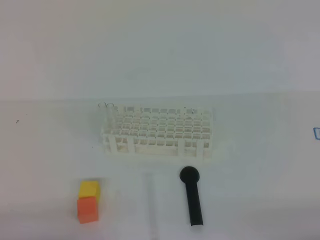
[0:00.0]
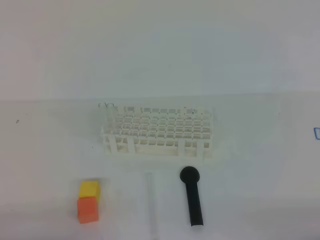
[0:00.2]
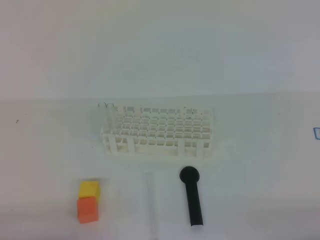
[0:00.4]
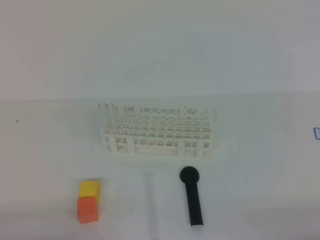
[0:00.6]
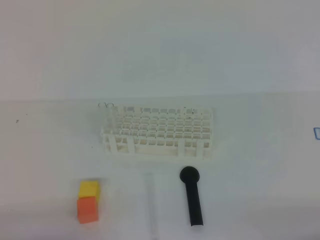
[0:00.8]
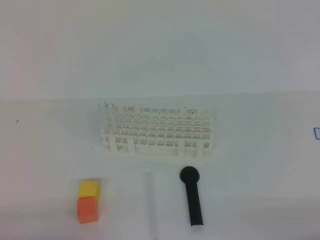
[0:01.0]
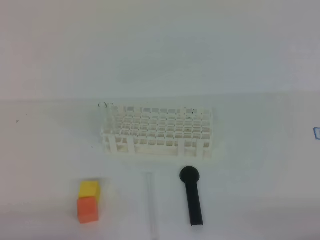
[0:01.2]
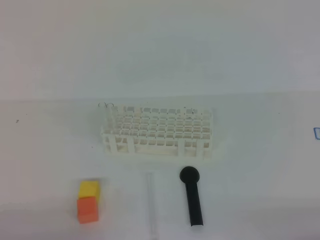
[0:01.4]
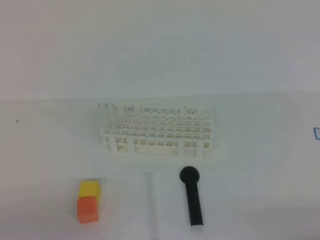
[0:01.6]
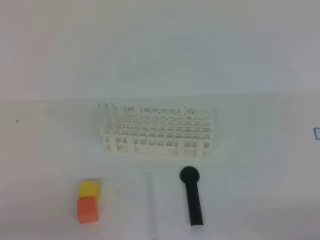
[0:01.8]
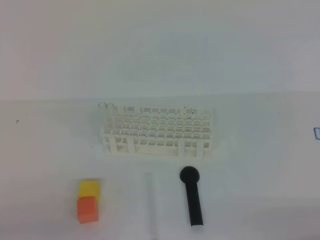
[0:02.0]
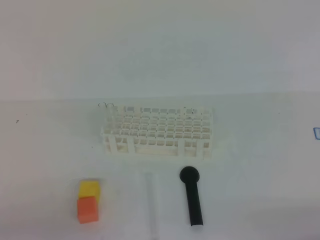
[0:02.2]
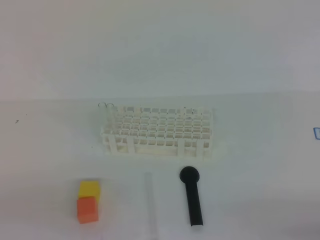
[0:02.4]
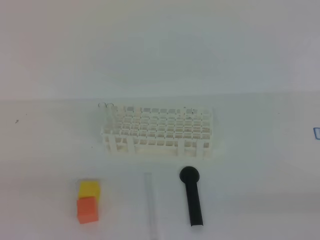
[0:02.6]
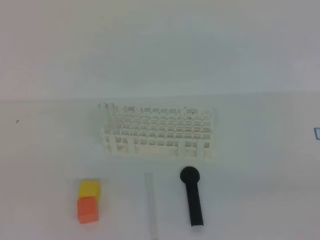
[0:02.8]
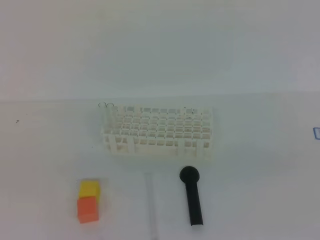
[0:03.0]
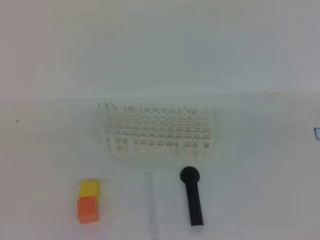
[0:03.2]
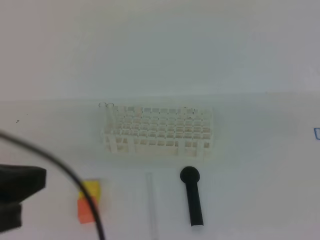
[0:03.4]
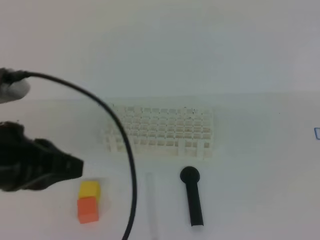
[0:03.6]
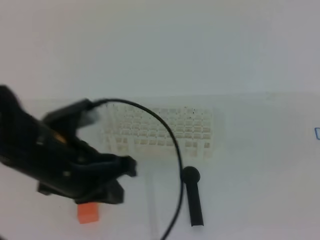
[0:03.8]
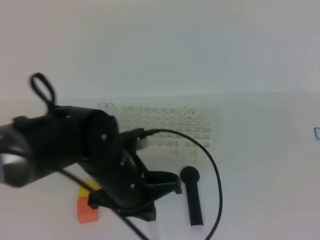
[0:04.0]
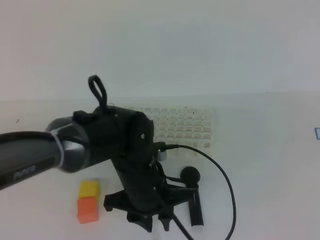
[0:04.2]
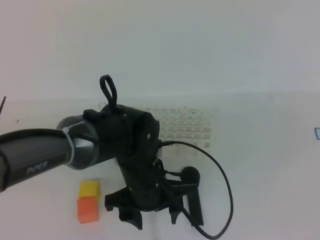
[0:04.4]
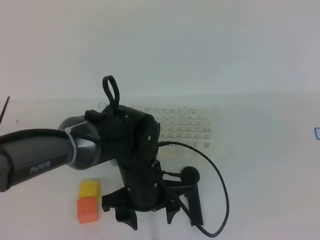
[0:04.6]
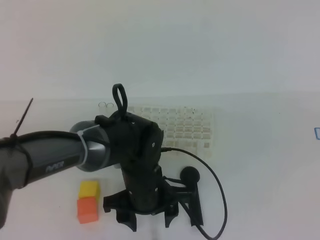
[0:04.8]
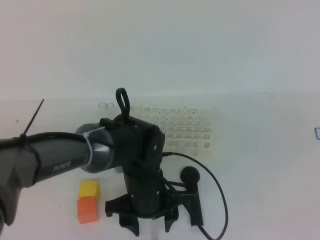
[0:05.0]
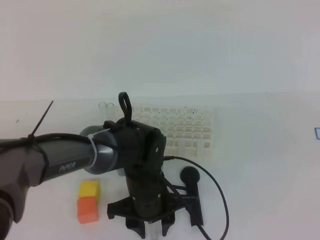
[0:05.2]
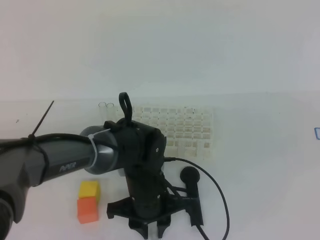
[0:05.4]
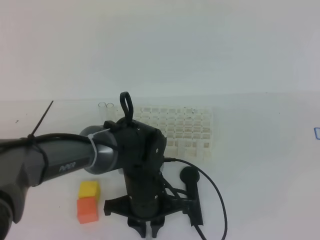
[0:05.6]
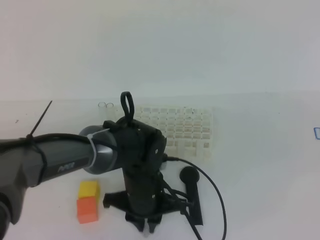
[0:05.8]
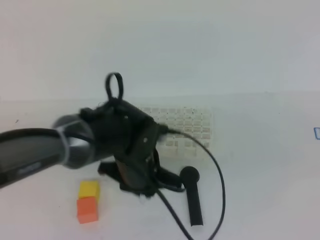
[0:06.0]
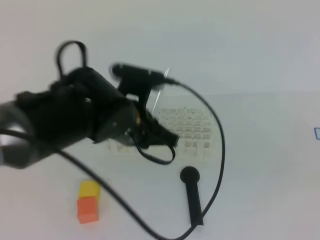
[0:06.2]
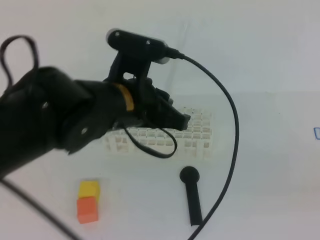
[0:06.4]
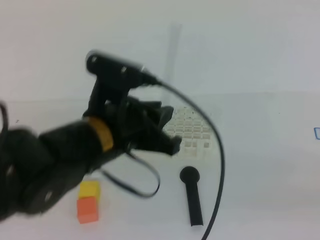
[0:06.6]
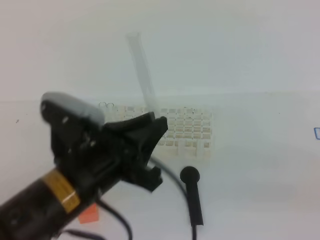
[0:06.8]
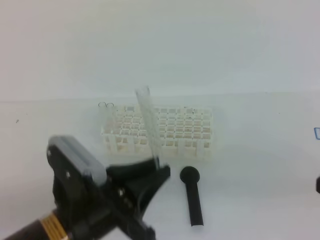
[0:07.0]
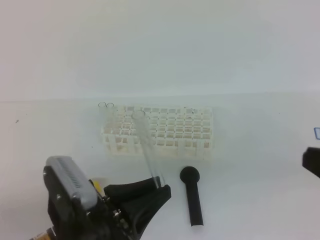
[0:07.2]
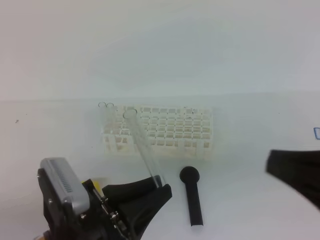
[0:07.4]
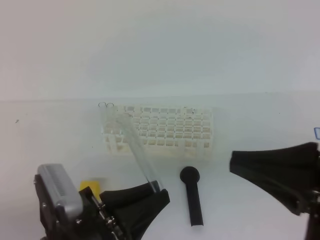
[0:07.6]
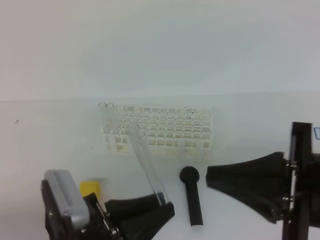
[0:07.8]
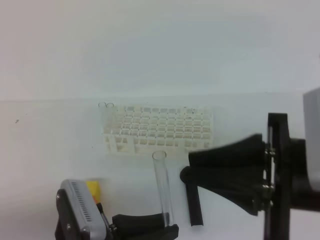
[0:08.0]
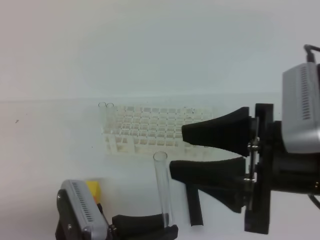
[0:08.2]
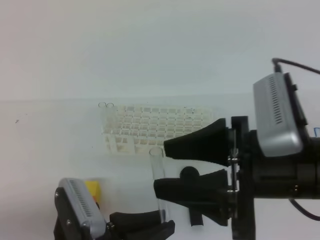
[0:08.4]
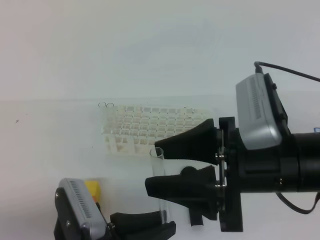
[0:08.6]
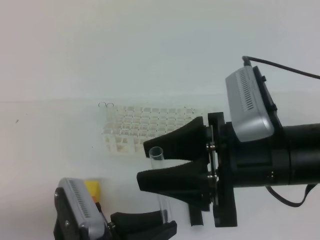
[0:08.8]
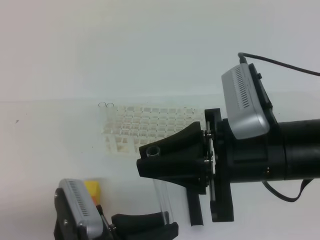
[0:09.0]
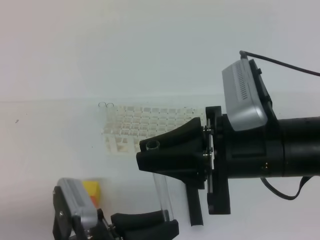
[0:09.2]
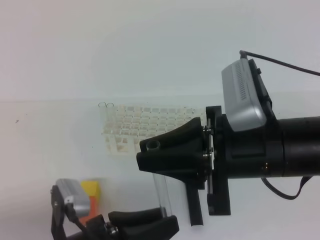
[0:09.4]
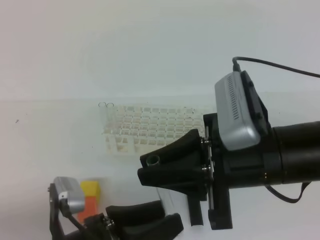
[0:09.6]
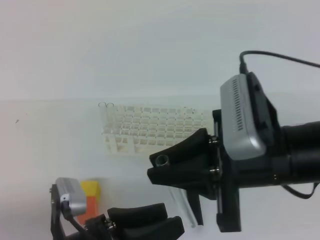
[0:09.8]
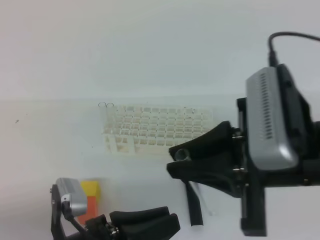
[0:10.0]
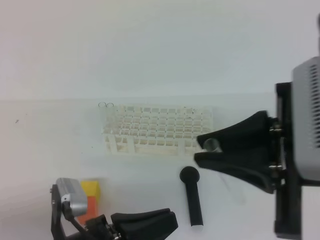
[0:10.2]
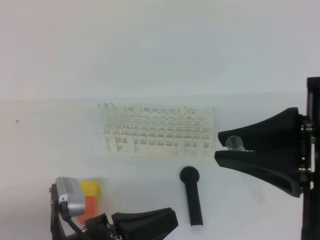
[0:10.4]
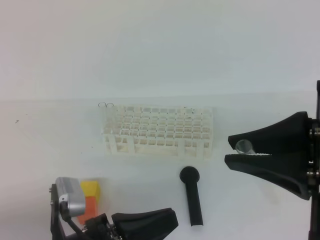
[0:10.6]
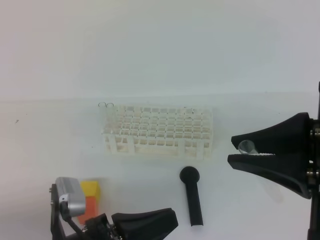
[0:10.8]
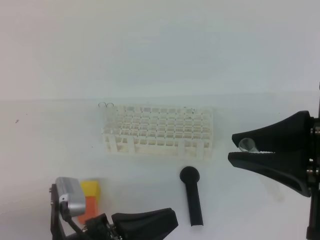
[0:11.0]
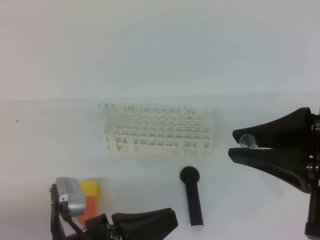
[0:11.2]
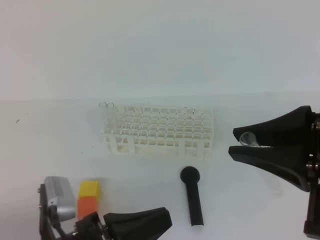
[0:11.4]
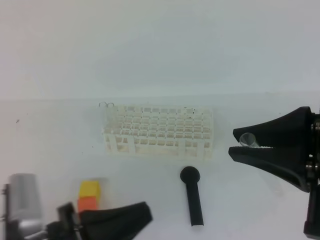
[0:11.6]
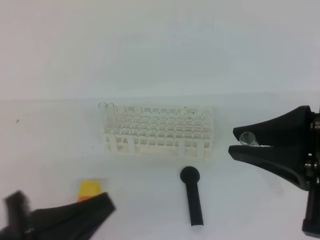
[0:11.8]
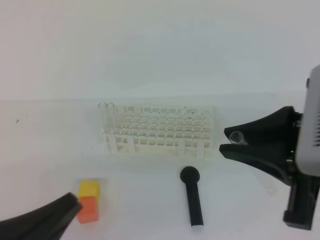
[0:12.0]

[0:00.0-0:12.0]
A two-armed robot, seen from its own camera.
0:03.0 to 0:04.4: The left gripper moves forward, to the right and downward, about 40 cm, and opens. Meanwhile the right gripper shifts approximately 5 cm upward.
0:04.4 to 0:06.0: The left gripper closes its fingers.
0:06.0 to 0:07.6: The left gripper heads backward and to the left, covering approximately 20 cm. The right gripper moves to the left, forward and downward, approximately 15 cm.
0:07.6 to 0:09.0: The right gripper moves to the left and forward, approximately 10 cm, and opens up.
0:09.0 to 0:10.4: The left gripper opens, then closes once more. Meanwhile the right gripper is displaced to the right and upward by approximately 10 cm.
0:10.4 to 0:12.0: The left gripper heads to the left and upward, covering about 10 cm.

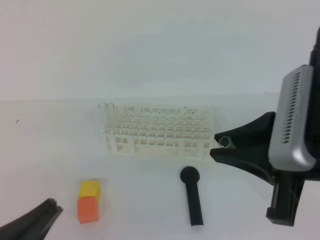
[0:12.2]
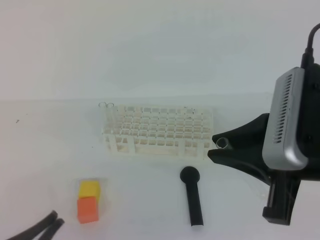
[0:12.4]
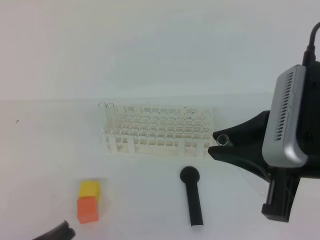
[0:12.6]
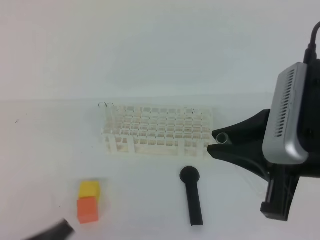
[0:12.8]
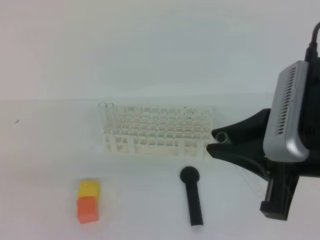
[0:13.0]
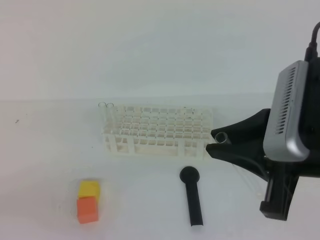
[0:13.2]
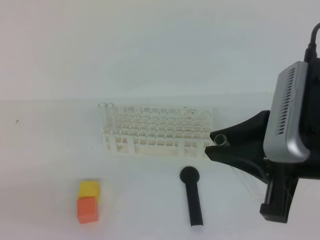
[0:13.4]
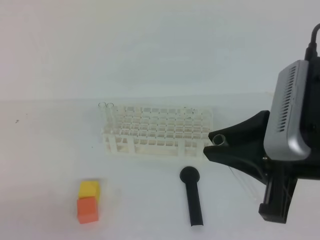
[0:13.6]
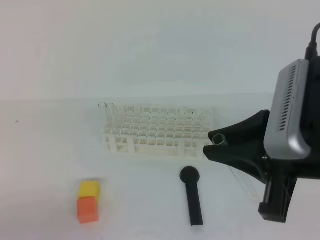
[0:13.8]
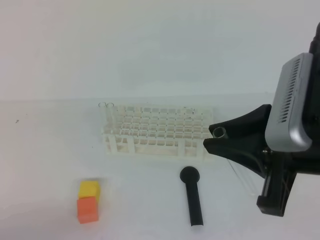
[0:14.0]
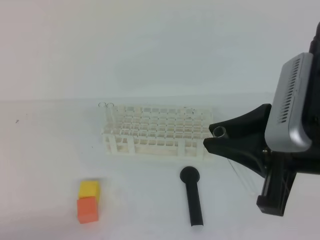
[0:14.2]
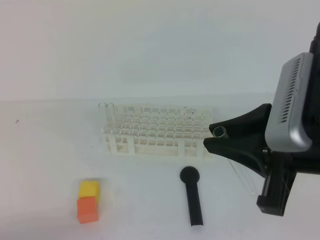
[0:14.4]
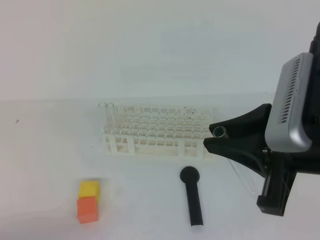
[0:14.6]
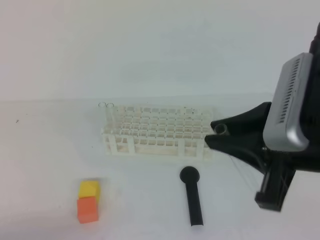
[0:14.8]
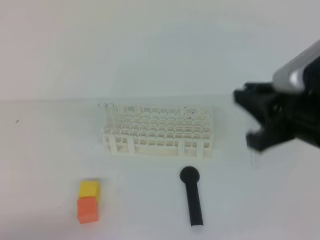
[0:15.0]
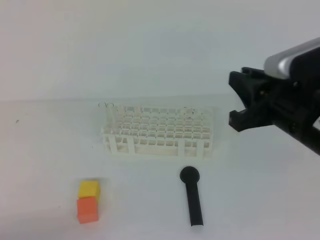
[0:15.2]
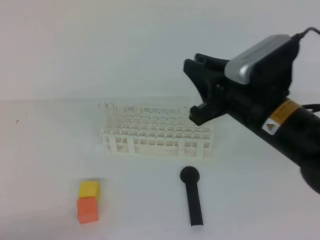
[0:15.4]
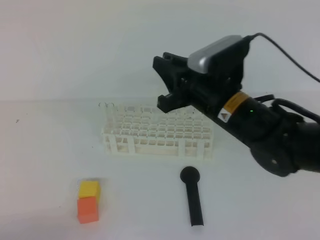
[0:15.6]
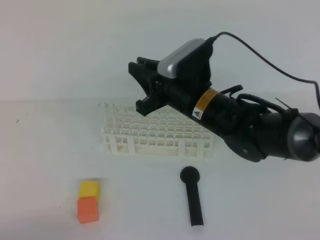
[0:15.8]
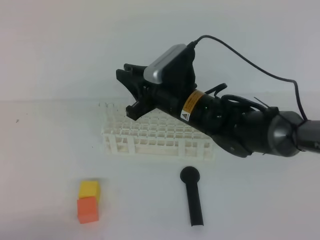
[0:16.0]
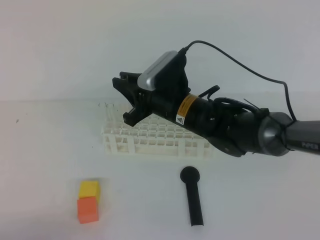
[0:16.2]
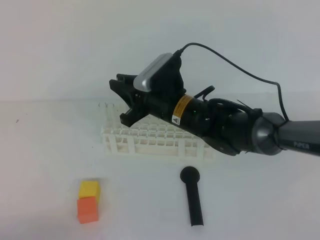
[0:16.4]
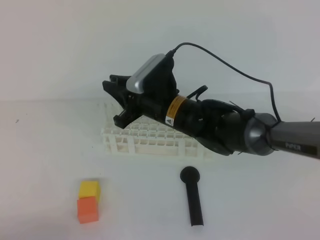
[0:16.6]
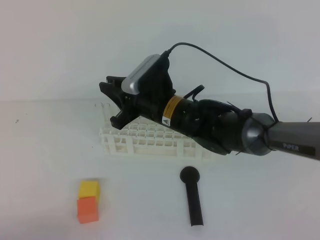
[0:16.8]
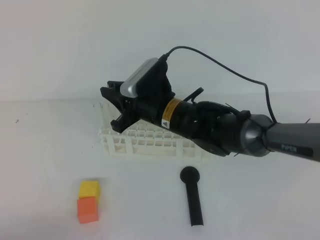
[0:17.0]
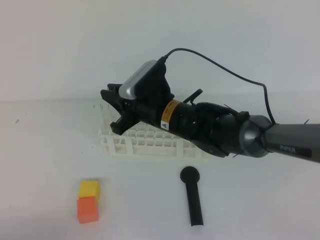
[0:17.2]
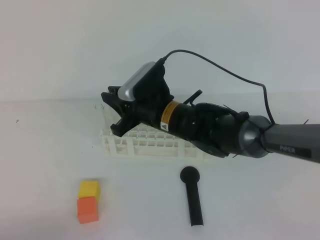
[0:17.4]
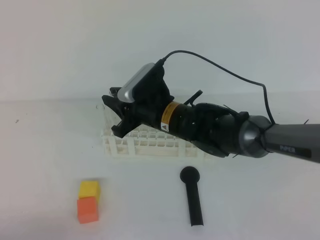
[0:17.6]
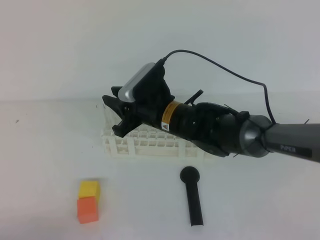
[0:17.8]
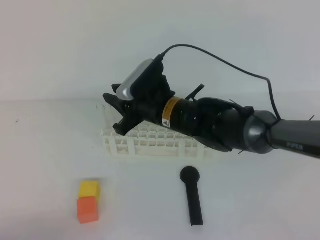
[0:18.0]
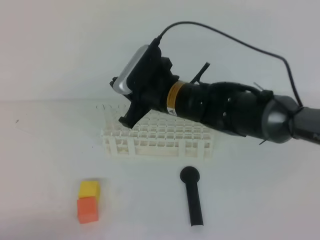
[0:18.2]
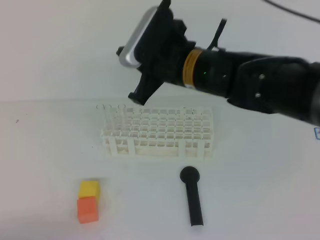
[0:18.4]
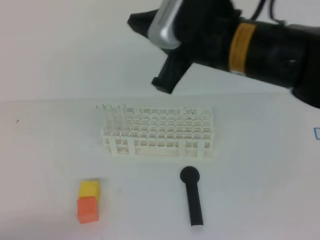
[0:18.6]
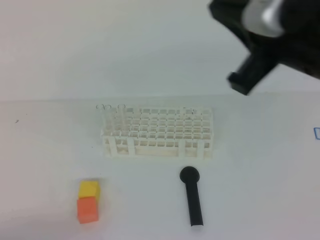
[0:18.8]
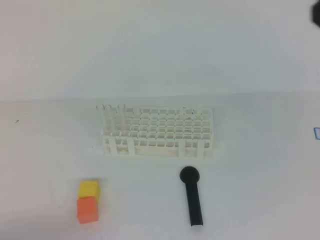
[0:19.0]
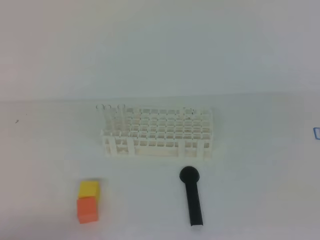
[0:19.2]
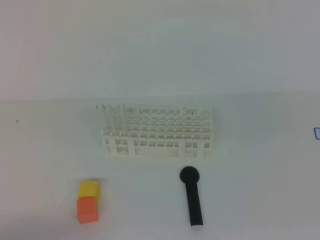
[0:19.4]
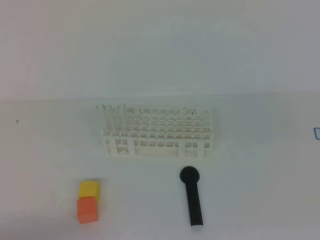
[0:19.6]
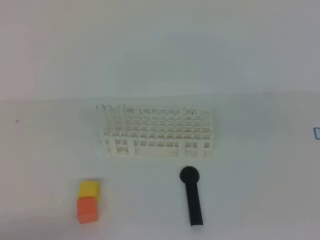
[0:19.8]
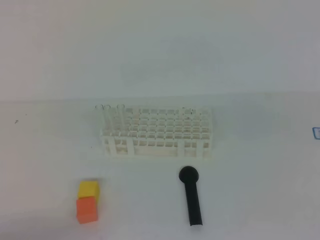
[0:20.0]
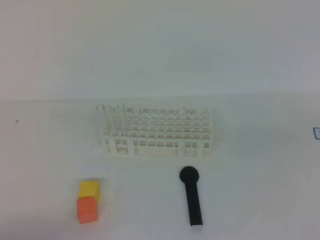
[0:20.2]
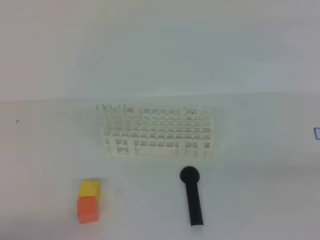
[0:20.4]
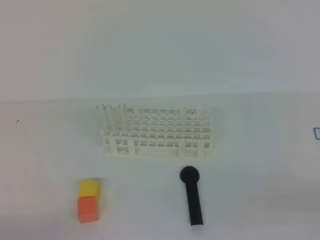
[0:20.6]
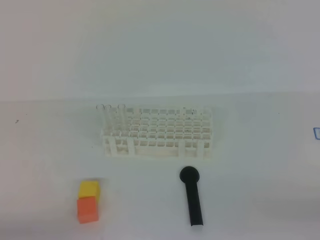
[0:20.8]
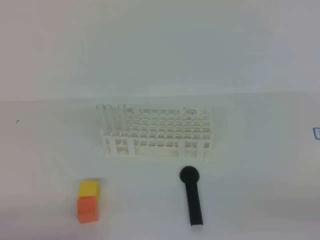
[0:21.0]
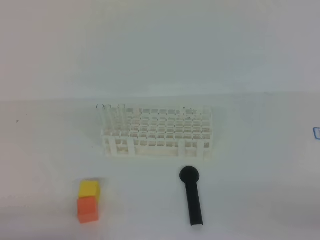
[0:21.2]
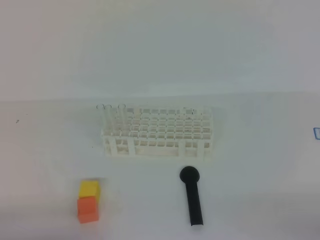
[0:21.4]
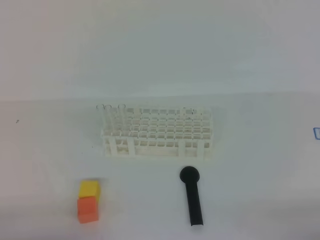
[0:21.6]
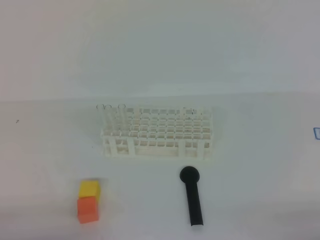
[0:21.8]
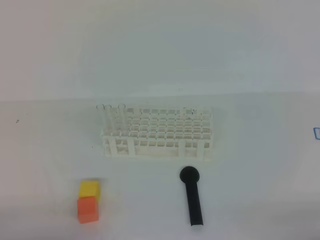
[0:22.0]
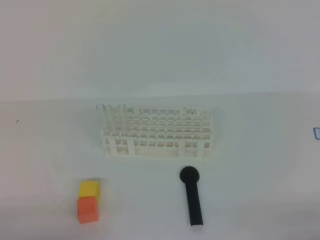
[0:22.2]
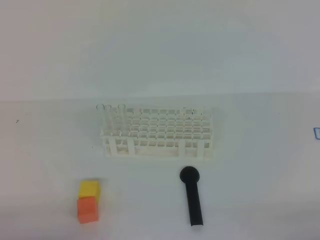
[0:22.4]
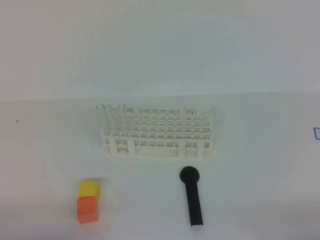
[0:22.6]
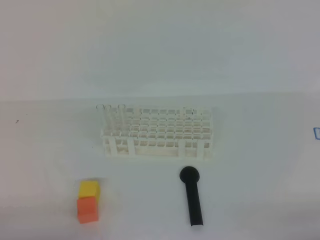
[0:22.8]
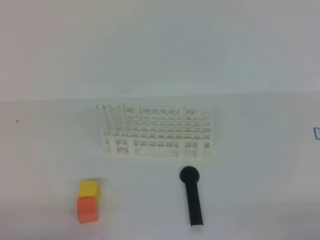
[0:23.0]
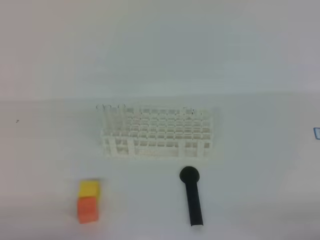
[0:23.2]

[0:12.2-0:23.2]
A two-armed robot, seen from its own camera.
0:12.2 to 0:13.8: The left gripper goes about 10 cm to the left and downward.
0:13.8 to 0:15.4: The right gripper is displaced forward by approximately 10 cm.
0:15.4 to 0:17.0: The right gripper heads to the left, forward and downward, covering roughly 20 cm.
0:17.0 to 0:18.4: The right gripper is displaced upward by approximately 10 cm.
0:18.4 to 0:20.0: The right gripper moves to the right and backward, roughly 35 cm.
